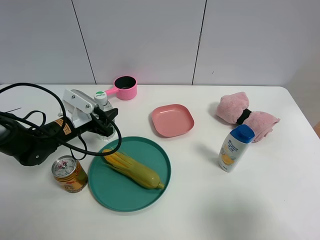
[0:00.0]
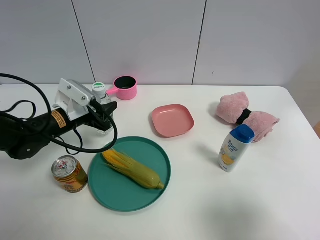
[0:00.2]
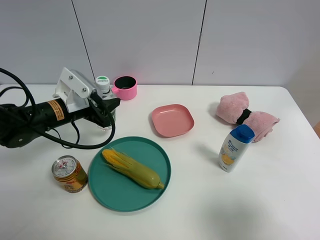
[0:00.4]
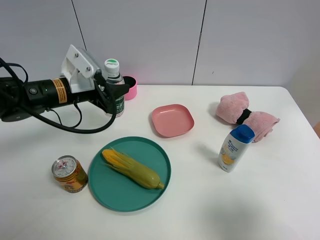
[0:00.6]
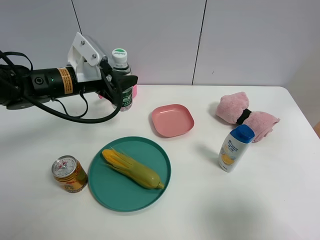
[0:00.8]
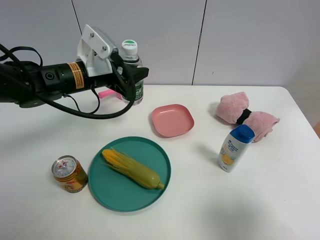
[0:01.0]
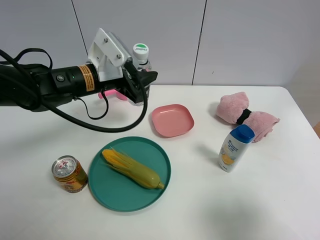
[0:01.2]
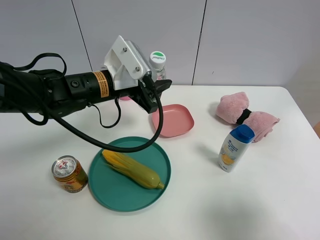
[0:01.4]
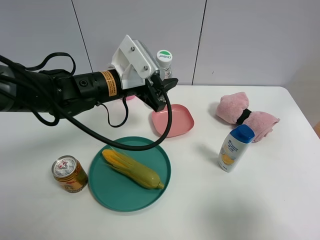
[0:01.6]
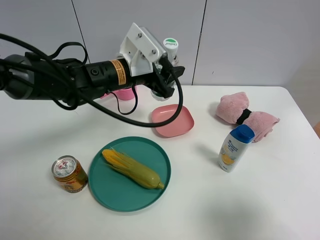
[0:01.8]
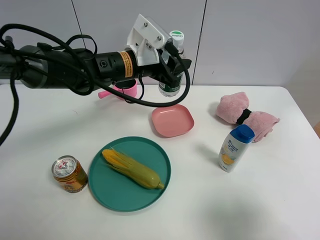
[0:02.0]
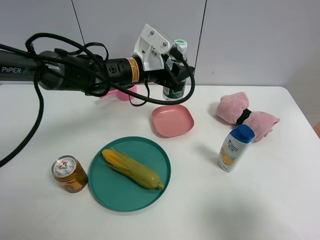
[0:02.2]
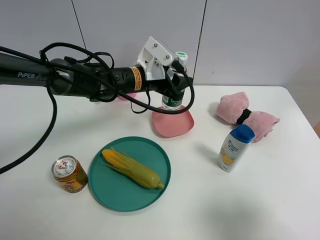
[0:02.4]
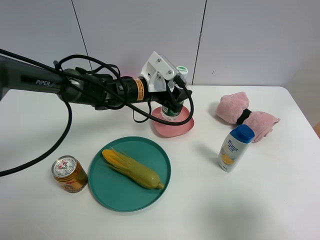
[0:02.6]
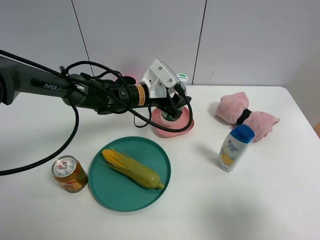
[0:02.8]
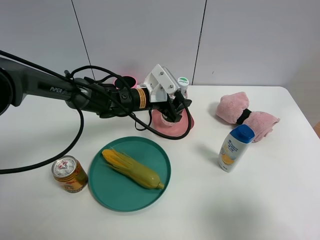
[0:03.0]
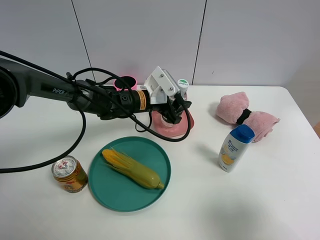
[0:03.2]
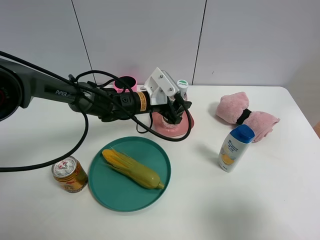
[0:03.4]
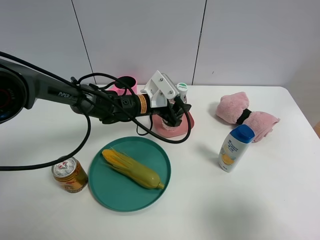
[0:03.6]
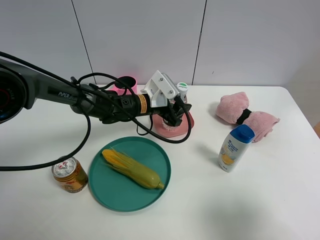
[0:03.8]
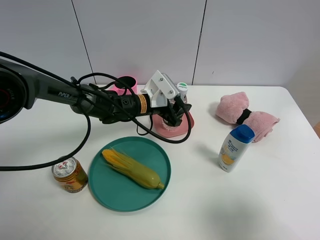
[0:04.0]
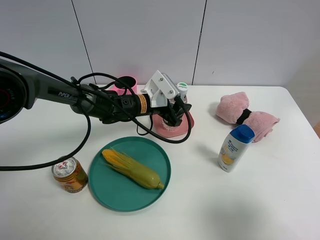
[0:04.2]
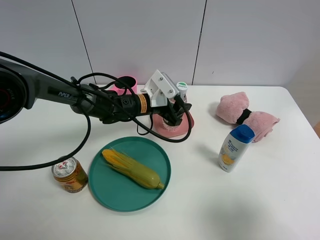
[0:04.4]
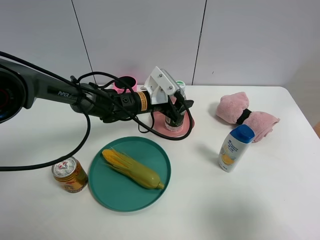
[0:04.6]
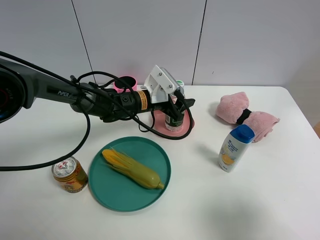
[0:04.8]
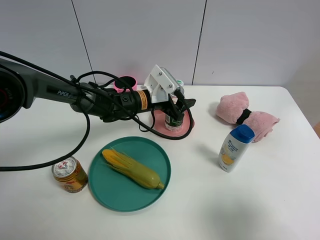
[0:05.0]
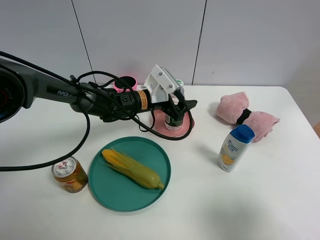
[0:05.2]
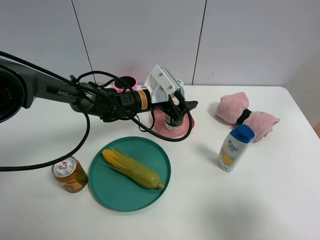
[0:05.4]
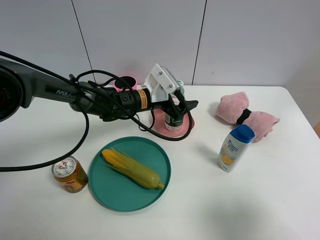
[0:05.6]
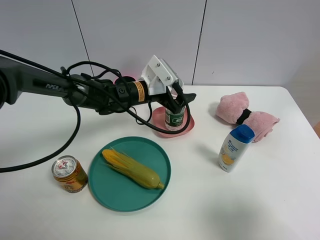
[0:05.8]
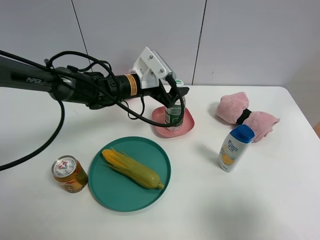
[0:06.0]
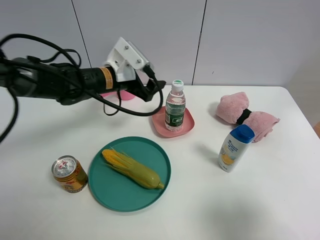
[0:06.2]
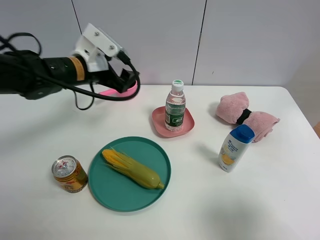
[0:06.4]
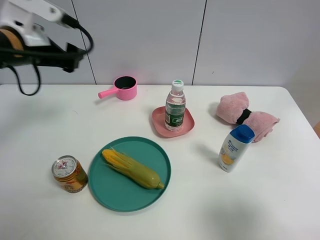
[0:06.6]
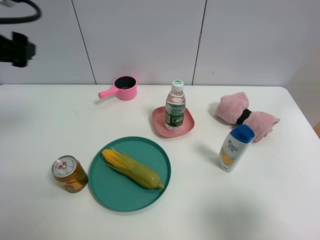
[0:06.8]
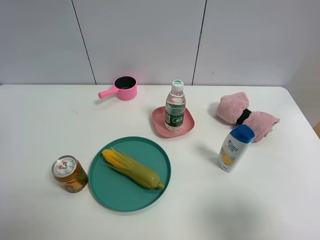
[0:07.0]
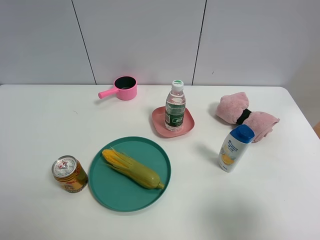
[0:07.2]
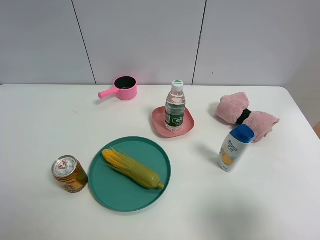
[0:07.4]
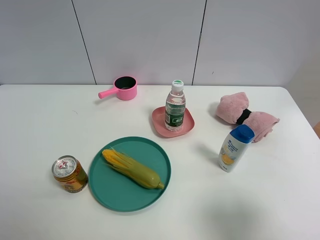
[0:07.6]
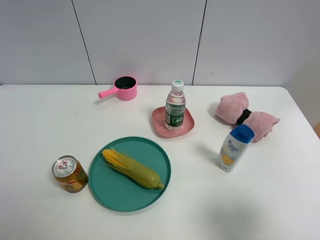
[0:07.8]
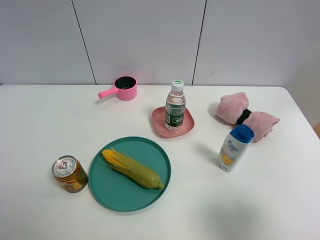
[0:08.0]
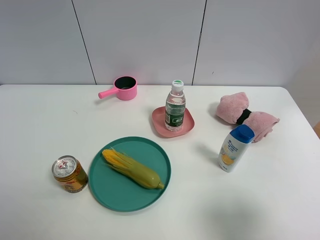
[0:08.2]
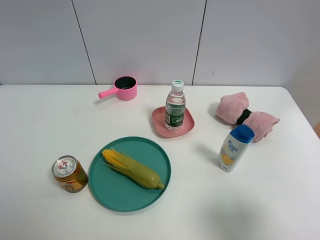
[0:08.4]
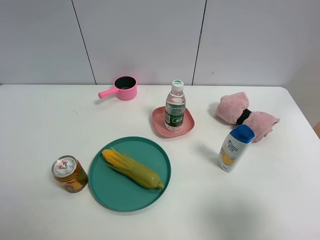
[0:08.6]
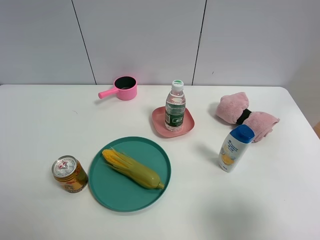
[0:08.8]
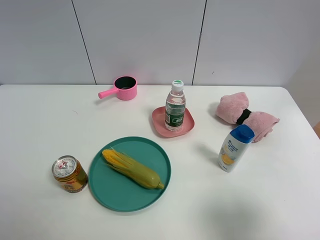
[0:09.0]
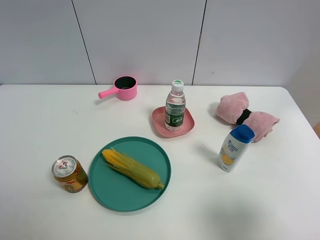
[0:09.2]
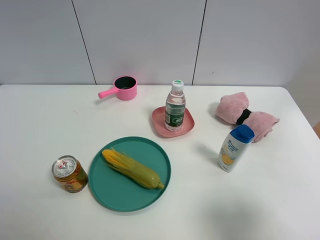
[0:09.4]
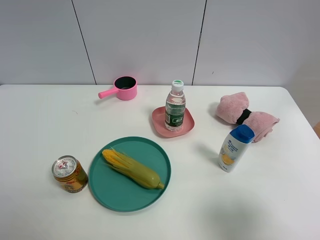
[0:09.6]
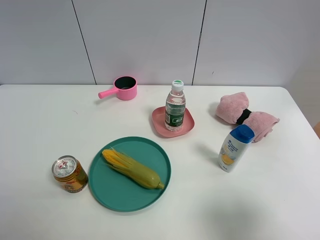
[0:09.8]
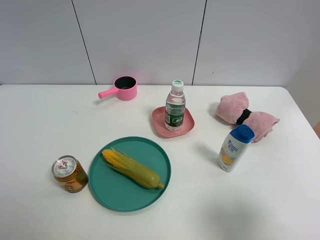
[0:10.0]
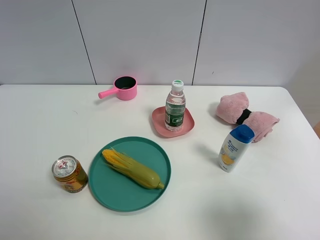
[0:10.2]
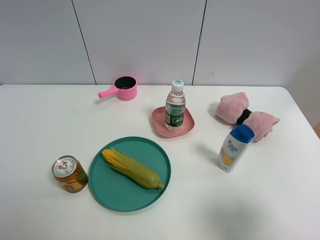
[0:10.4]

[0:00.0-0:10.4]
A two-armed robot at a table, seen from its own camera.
Task of the whole recording: the gripper move the object.
Step, 0:00.0 to 0:06.2: Place the YiBao mineral water into the pink plate with the left gripper.
0:00.0 to 0:01.4: The left gripper shifts about 15 cm to the right and upward.
0:01.4 to 0:03.0: The left gripper shifts approximately 15 cm downward, forward and to the right.
0:03.0 to 0:04.4: The grippers make only small movements.
0:04.4 to 0:06.0: The left gripper shifts about 5 cm upward, and opens up.
0:06.0 to 0:07.4: The left gripper travels backward, to the left and upward by about 50 cm.

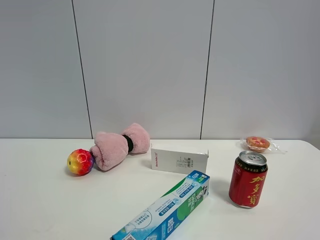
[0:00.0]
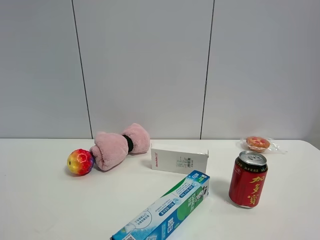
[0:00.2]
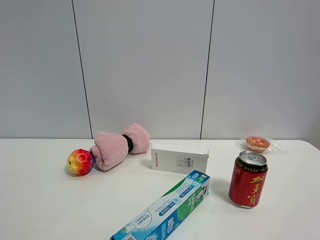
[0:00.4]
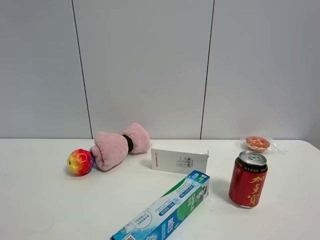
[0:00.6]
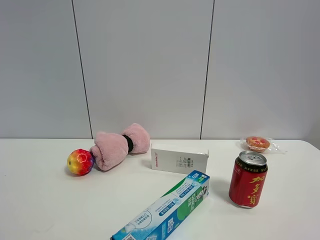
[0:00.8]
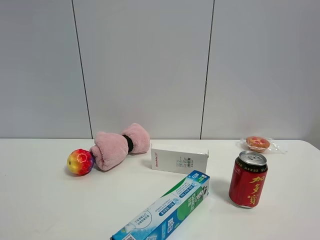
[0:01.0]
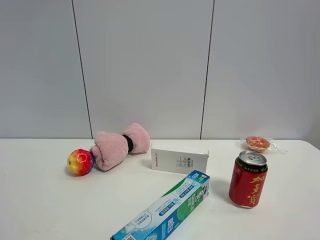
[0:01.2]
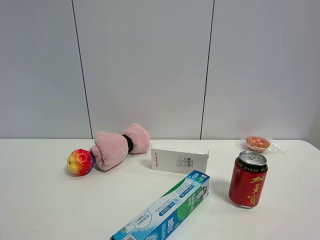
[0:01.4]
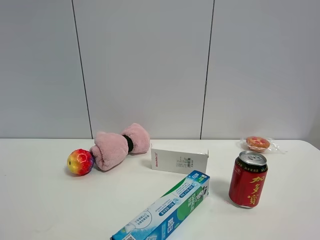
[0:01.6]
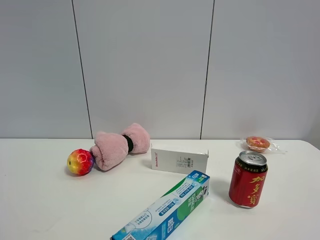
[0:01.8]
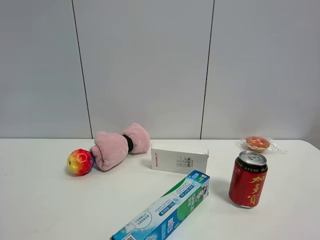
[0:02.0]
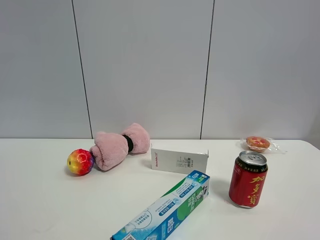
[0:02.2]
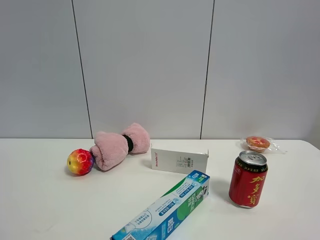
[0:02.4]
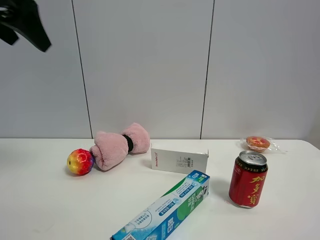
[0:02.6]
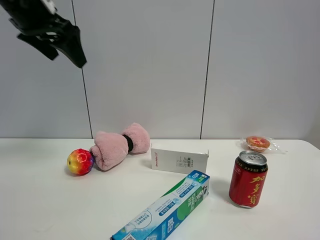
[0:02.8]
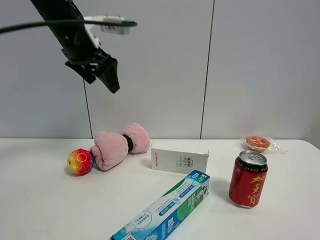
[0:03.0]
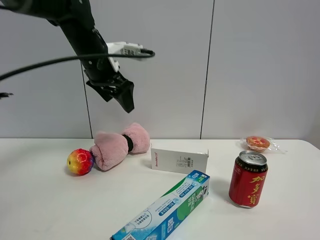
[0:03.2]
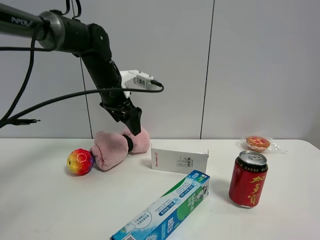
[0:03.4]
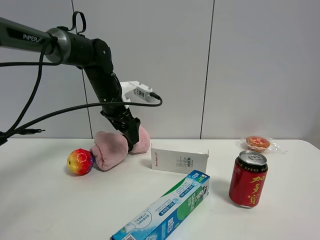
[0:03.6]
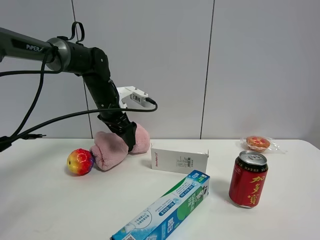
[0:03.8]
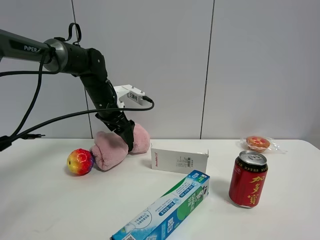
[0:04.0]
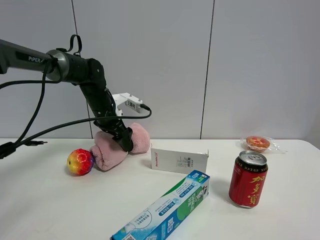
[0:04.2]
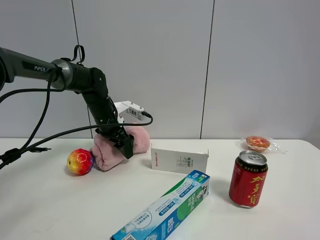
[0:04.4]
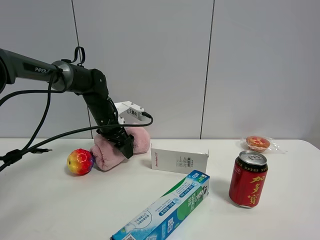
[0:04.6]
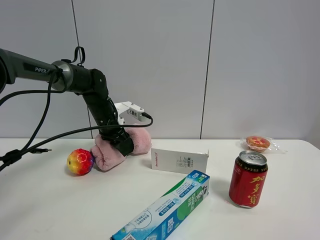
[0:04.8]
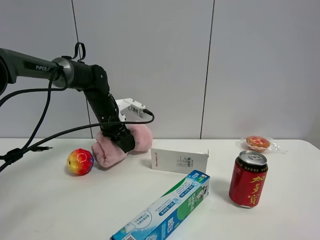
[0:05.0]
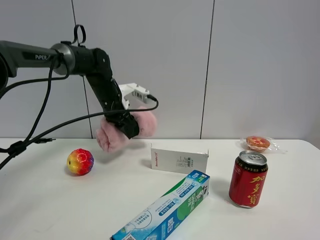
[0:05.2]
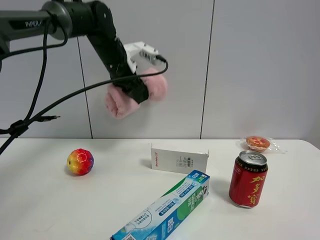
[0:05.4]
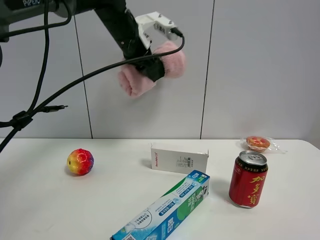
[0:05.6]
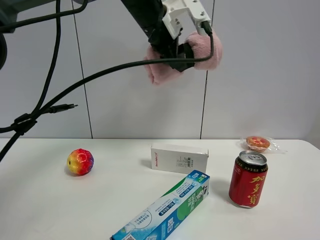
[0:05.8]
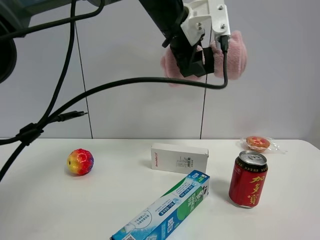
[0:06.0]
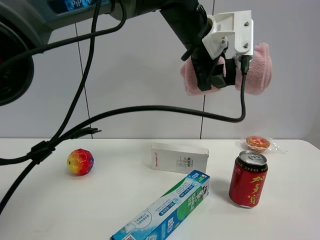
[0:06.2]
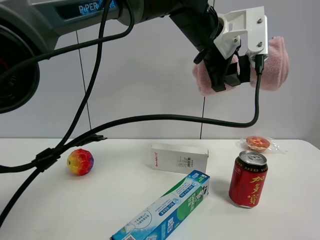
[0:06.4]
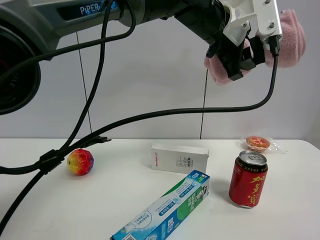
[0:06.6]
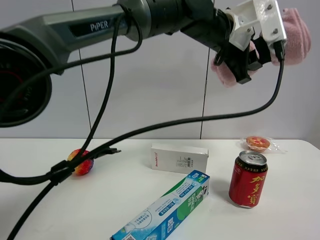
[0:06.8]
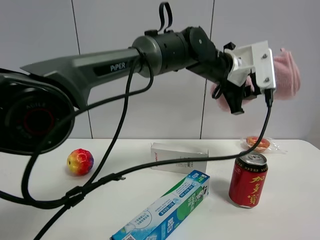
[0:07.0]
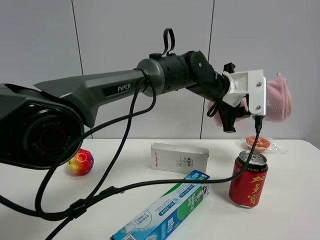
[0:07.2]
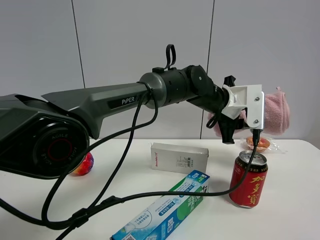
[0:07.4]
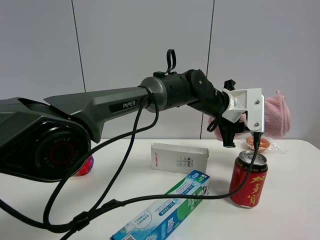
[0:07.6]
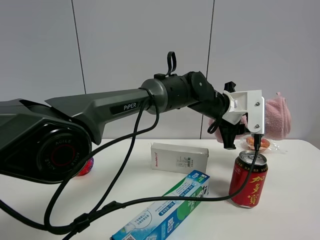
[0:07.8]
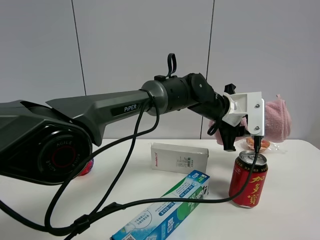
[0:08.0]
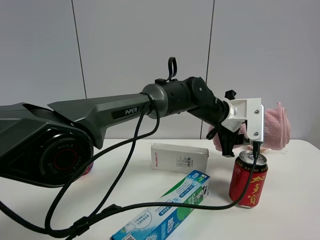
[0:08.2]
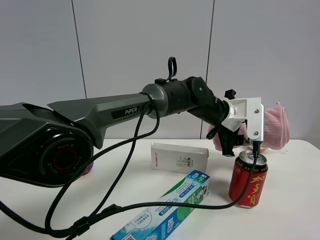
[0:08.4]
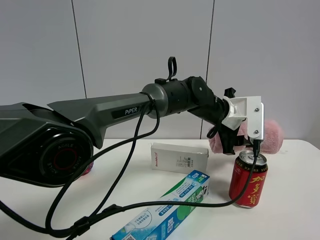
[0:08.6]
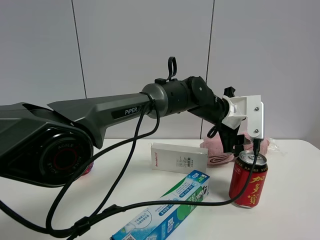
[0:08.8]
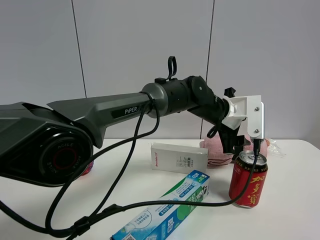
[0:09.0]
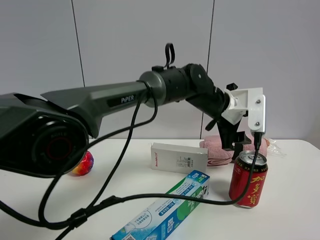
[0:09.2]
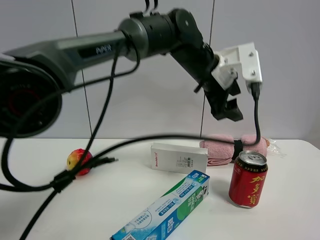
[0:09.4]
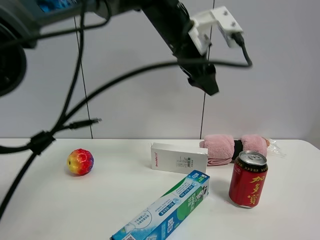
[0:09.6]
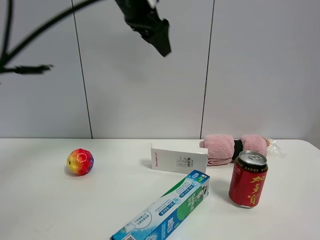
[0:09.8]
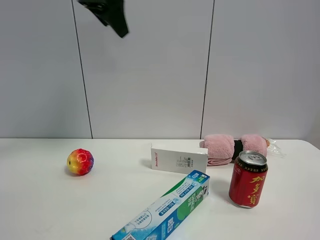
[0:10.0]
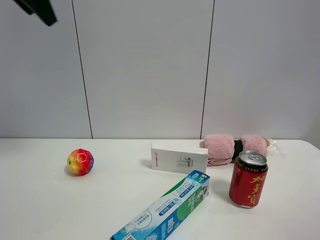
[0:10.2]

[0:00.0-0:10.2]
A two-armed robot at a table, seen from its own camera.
Task of the whole recording: the gripper move the object.
Step, 0:00.0 to 0:04.8: Grasp the pink towel with the left gripper.
Step, 0:05.0 to 0:09.0: Place the pink towel on the table with the left gripper.
0:00.0 to 0:01.4: Neither gripper changes place.
0:01.4 to 0:03.0: The left gripper heads forward, covering roughly 40 cm.
0:03.0 to 0:04.4: The left gripper travels downward and forward by approximately 20 cm.
0:04.4 to 0:05.8: The left gripper travels upward and to the right by roughly 25 cm, and closes its fingers.
0:05.8 to 0:07.2: The left gripper heads downward and to the right, covering about 20 cm.
0:07.2 to 0:08.8: The left gripper opens its fingers.
0:08.8 to 0:10.2: The left gripper shifts some 50 cm to the left and upward.
